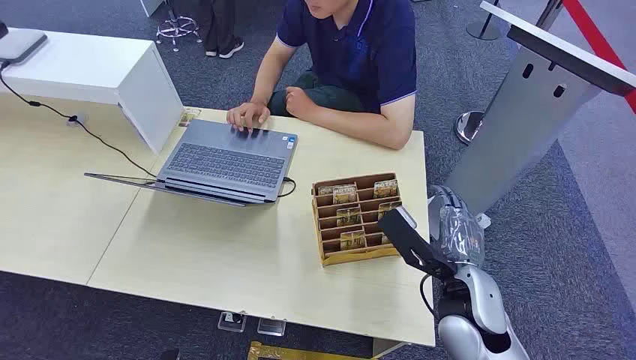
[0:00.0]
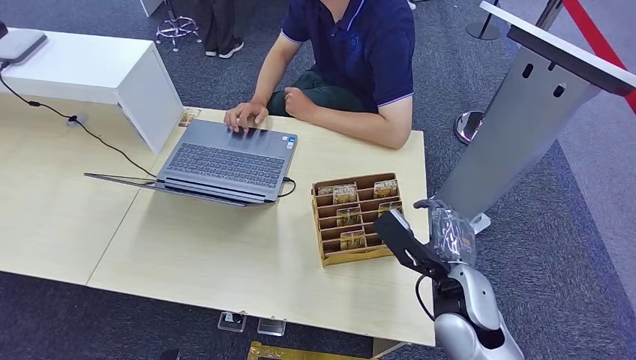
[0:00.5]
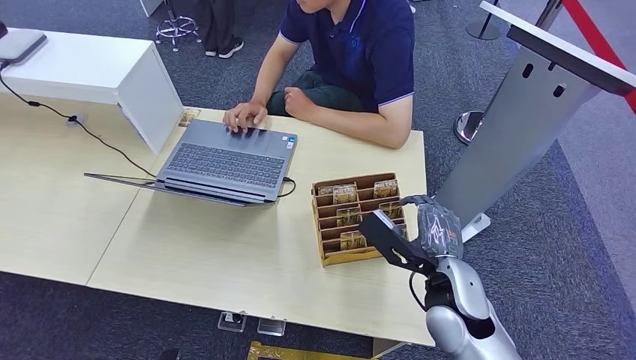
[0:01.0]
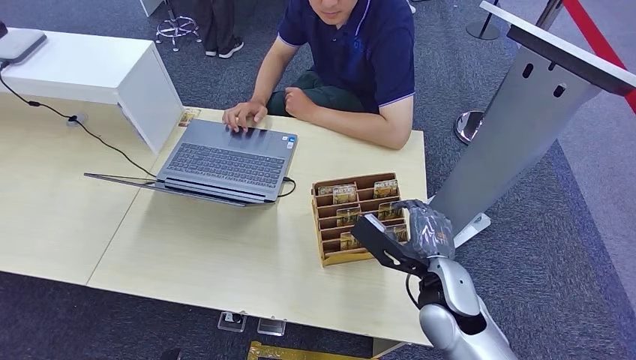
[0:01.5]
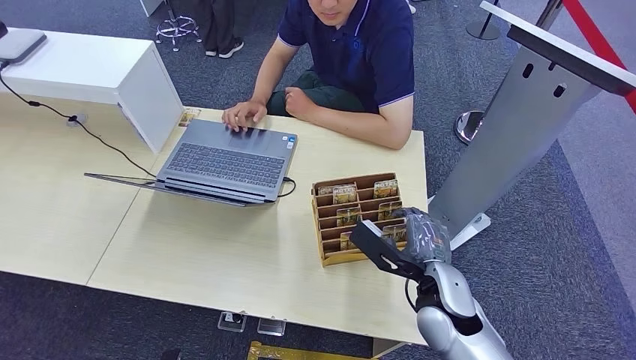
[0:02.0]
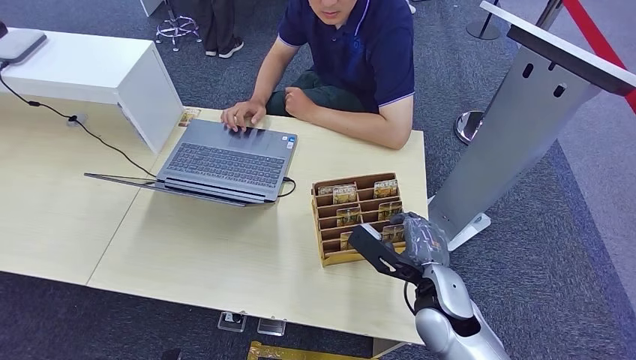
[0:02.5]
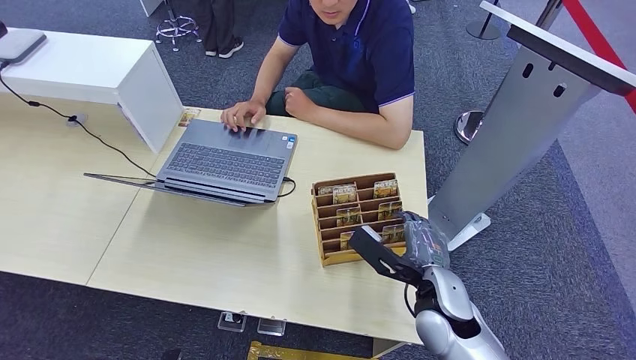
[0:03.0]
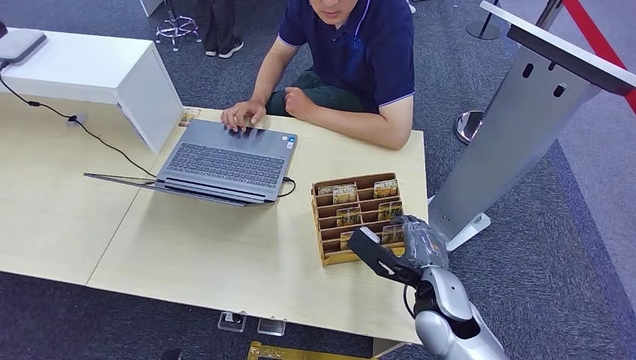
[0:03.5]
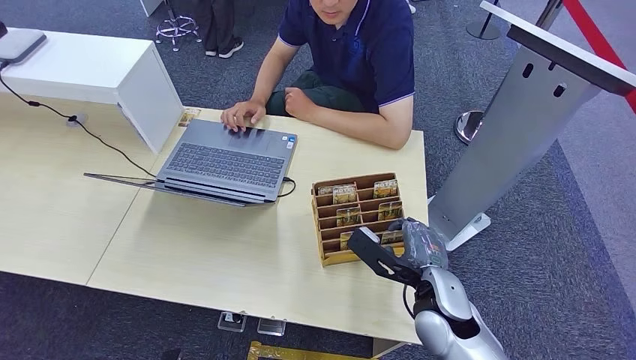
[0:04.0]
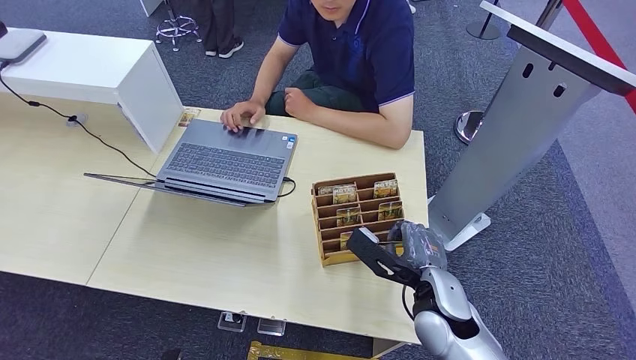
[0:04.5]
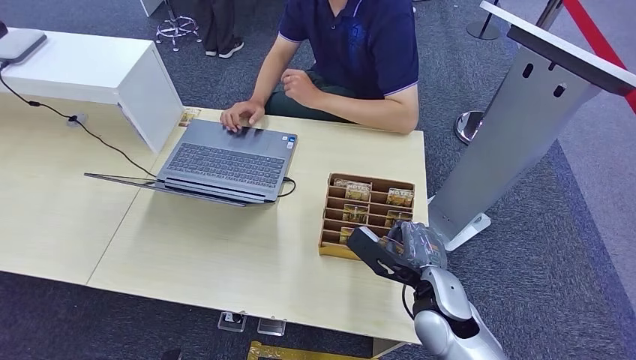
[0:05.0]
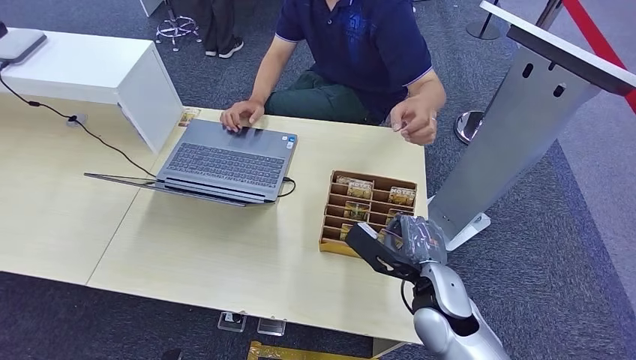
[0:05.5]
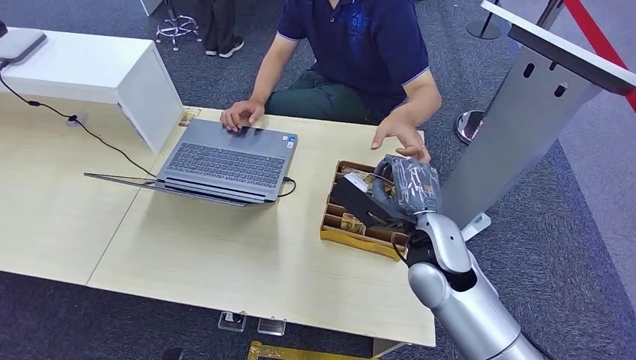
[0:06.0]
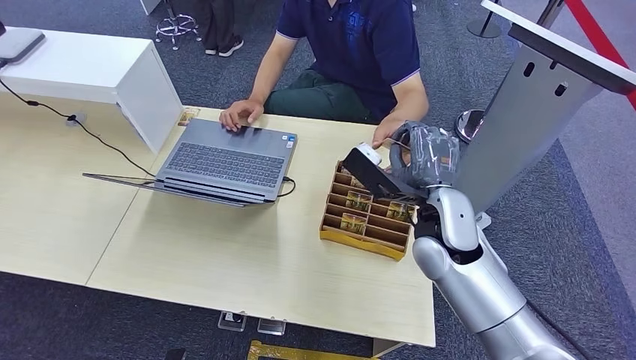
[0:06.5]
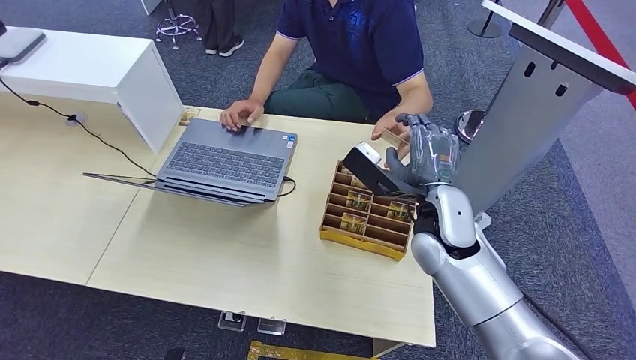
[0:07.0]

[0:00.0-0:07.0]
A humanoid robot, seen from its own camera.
Step, 0:00.0 to 0:06.0: Pick up the key card from the card box.
Step, 0:06.5 to 0:07.0: Hand the key card to the target.
0:02.0 to 0:05.0: Both hands stay about where they are.
0:05.0 to 0:07.0: The right hand heads upward and forward, covering roughly 15 cm.
